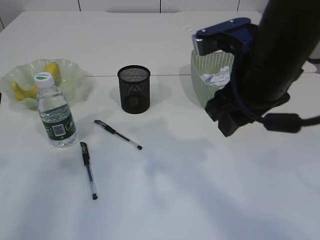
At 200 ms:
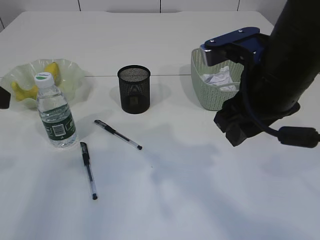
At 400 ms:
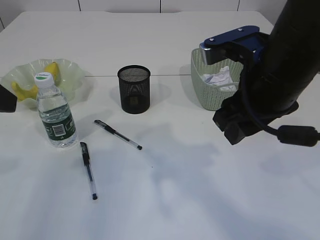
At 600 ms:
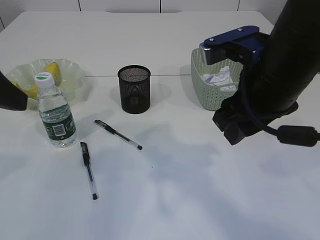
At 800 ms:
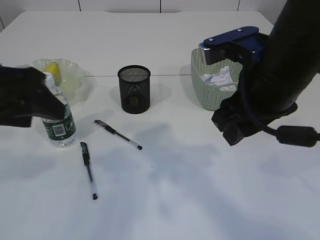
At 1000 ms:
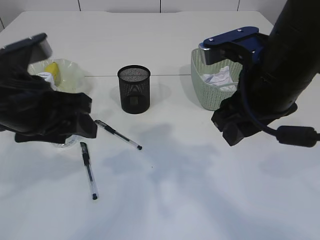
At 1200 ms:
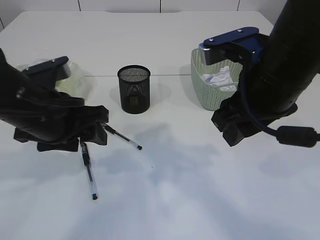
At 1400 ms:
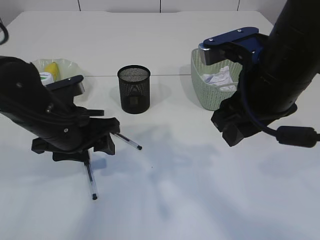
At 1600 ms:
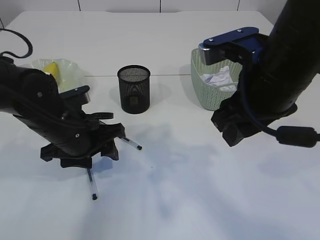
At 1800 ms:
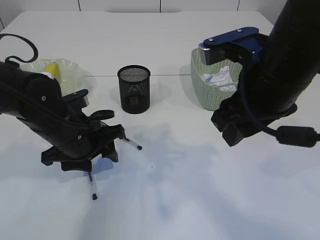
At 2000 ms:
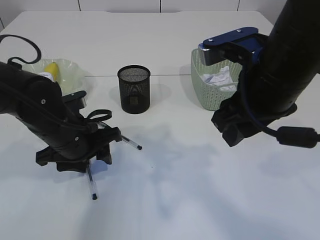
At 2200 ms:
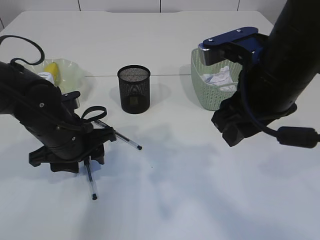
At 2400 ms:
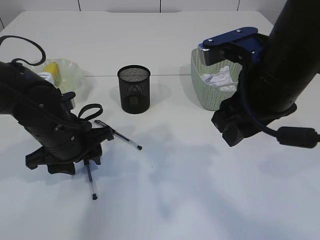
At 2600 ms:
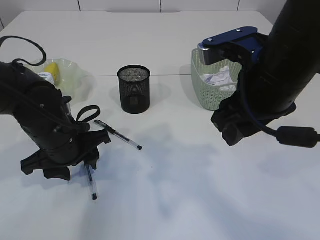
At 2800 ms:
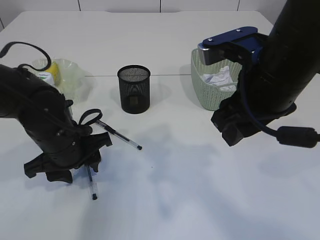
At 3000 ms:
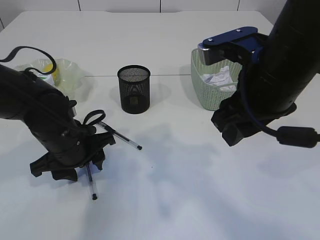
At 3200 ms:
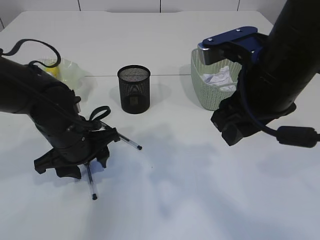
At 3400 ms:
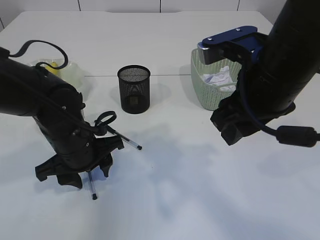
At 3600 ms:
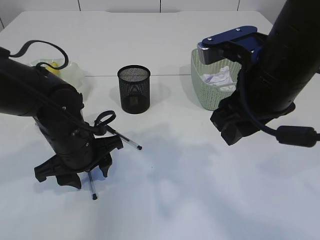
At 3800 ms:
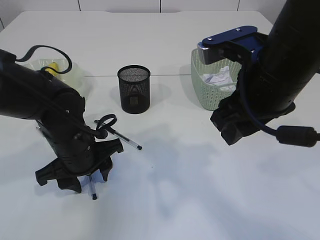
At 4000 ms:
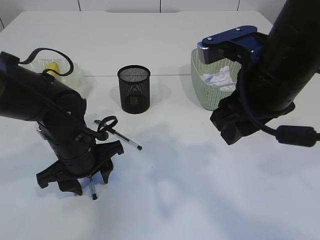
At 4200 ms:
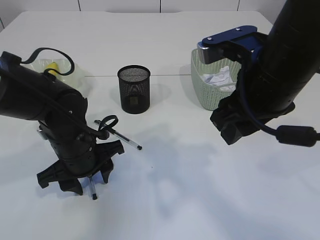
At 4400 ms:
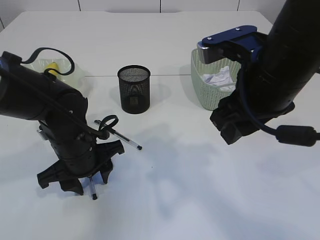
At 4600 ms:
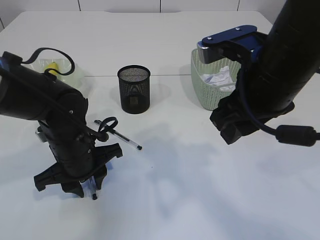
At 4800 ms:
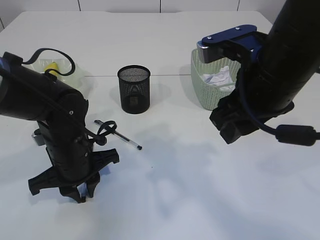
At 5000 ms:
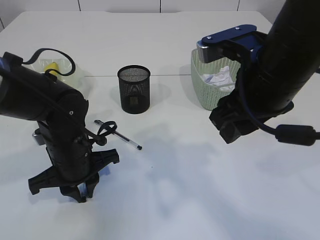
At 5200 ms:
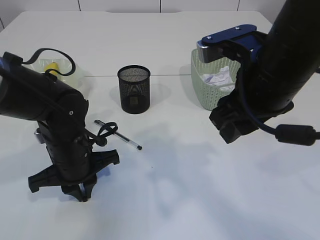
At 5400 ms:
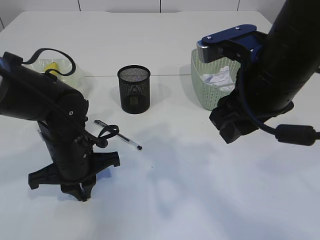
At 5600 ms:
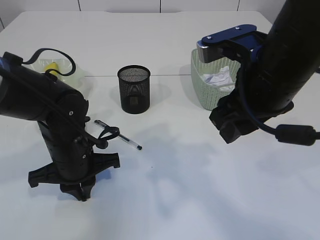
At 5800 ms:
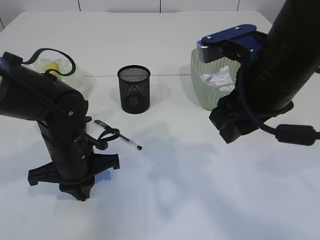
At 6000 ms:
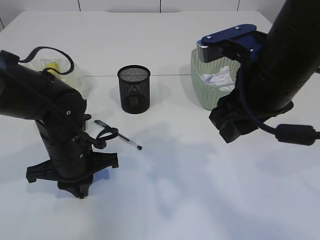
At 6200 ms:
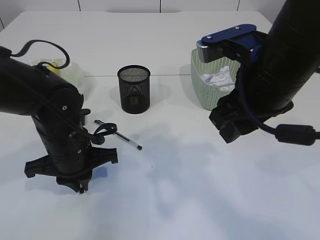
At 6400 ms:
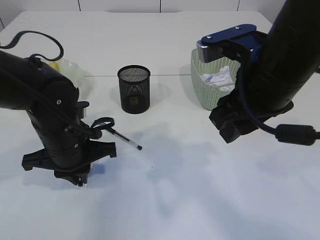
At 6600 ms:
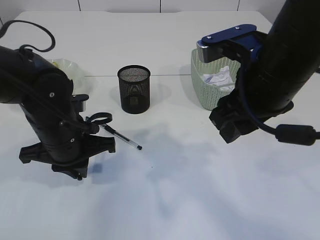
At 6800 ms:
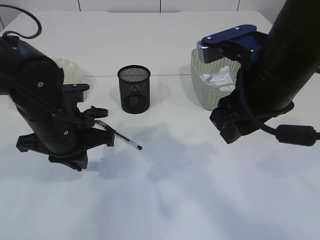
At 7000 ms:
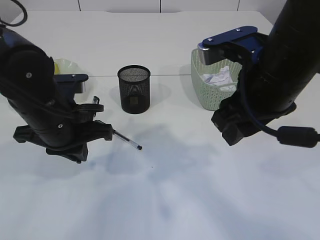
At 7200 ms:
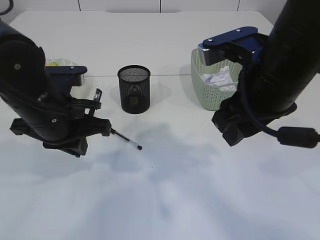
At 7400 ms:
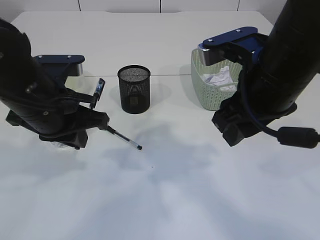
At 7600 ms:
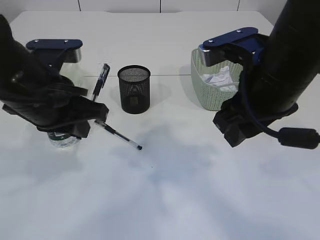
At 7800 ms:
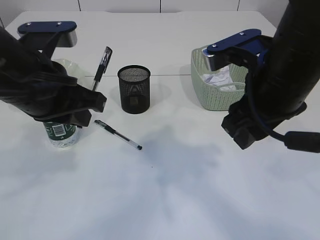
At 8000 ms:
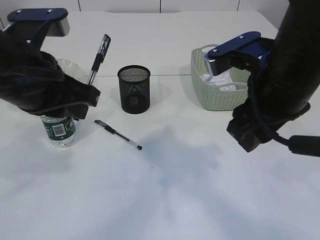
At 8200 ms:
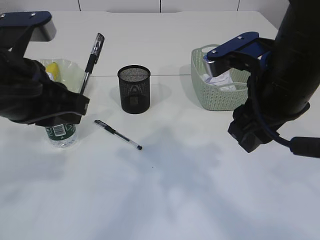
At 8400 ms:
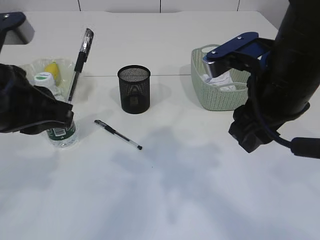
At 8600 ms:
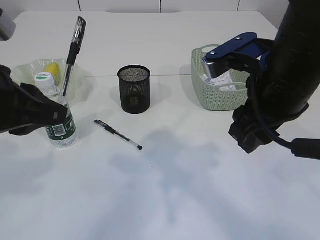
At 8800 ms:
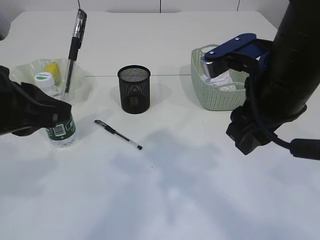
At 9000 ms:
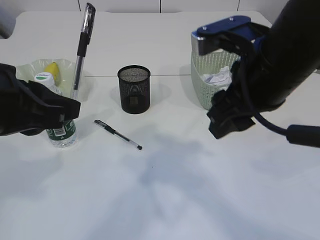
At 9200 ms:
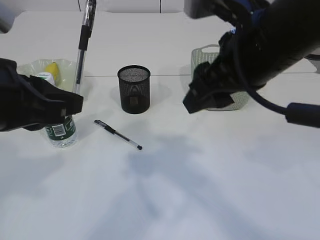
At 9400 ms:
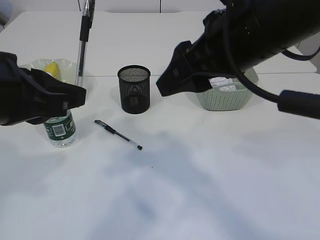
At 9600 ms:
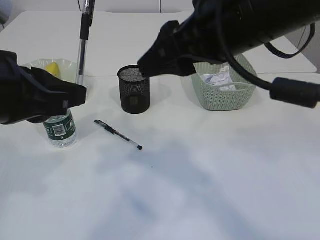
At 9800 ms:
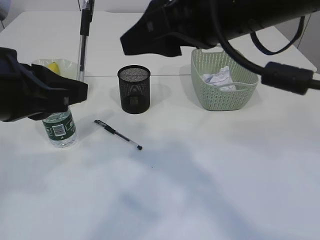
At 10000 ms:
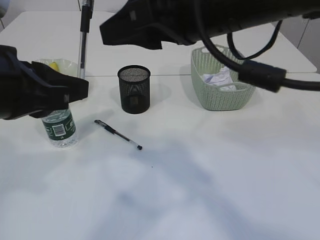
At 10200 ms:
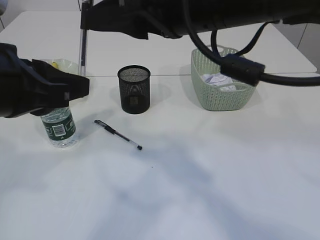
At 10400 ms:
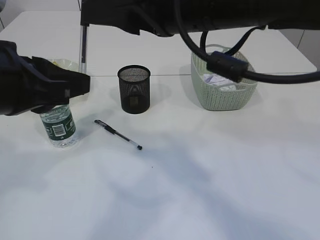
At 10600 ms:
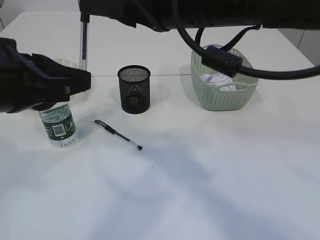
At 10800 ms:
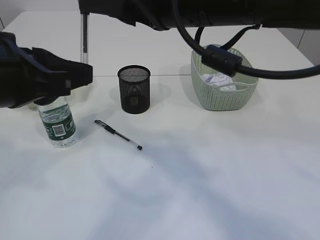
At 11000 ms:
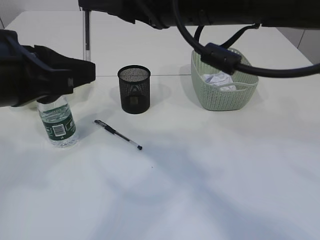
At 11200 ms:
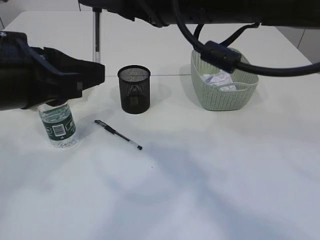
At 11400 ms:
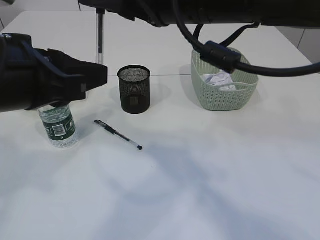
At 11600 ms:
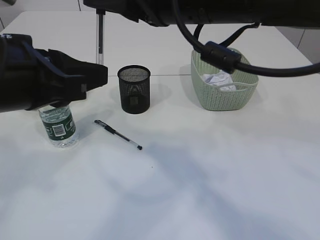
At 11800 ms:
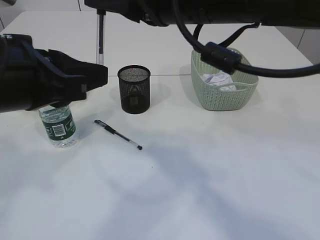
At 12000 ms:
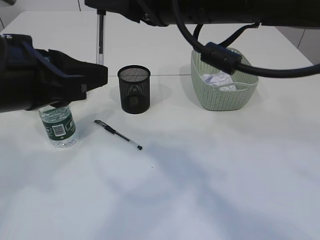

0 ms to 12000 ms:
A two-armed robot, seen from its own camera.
Step, 0 ms to 7000 ms: Pick up the pen with left arm.
0 ms to 1600 ms: The left gripper travels downward, to the right and forward by roughly 25 cm.
1600 ms to 3000 ms: There are only small adjustments of the grippers.
3000 ms to 4400 ms: The grippers move only a little.
4400 ms to 6000 ms: The left gripper closes.
6000 ms to 7600 ms: The left gripper heads upward, covering roughly 15 cm.
7600 ms to 9000 ms: The left gripper shifts approximately 10 cm backward.
9000 ms to 10400 ms: The right gripper is displaced to the left and upward by some 10 cm.
10400 ms to 12000 ms: The right gripper closes.

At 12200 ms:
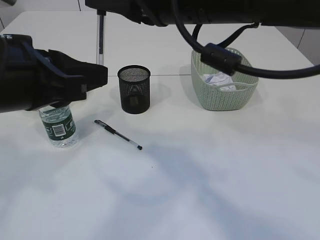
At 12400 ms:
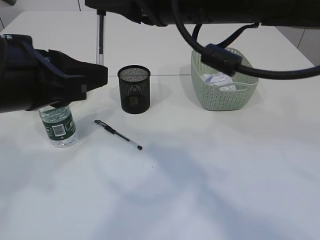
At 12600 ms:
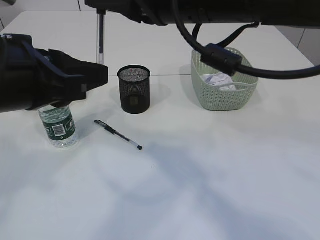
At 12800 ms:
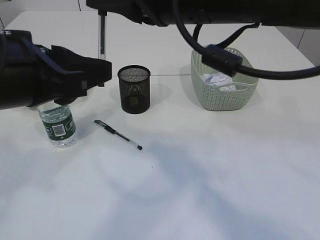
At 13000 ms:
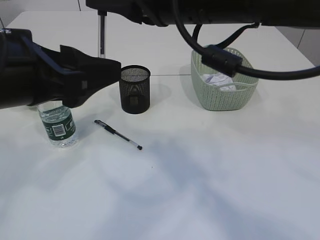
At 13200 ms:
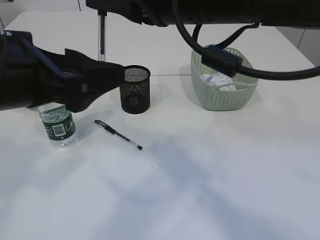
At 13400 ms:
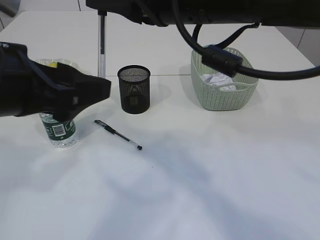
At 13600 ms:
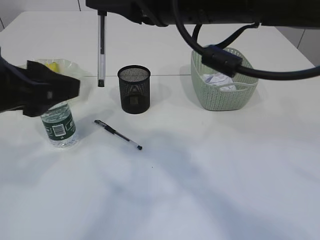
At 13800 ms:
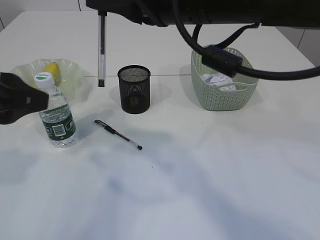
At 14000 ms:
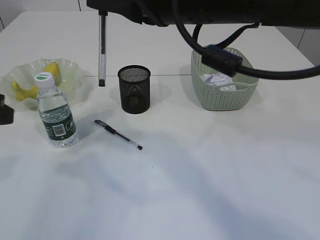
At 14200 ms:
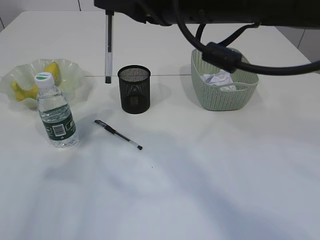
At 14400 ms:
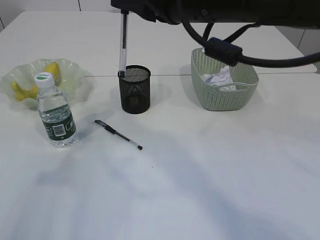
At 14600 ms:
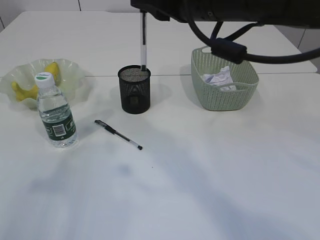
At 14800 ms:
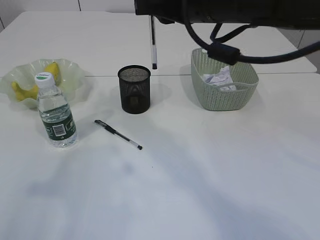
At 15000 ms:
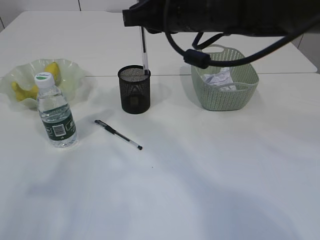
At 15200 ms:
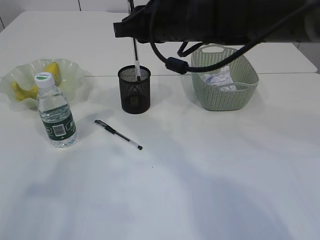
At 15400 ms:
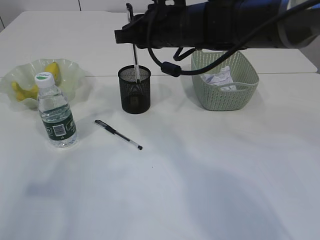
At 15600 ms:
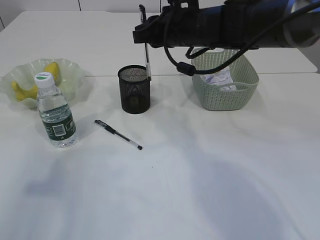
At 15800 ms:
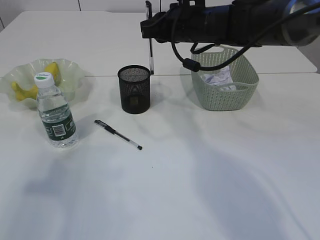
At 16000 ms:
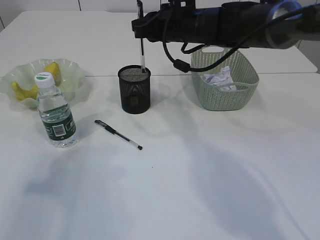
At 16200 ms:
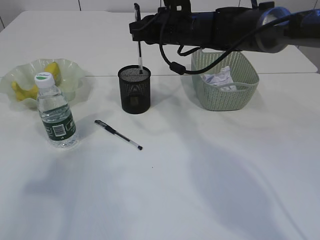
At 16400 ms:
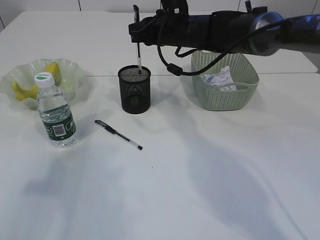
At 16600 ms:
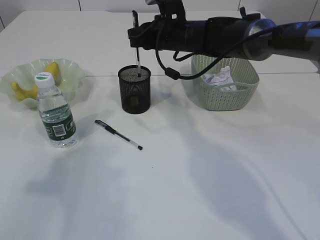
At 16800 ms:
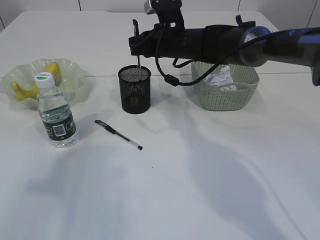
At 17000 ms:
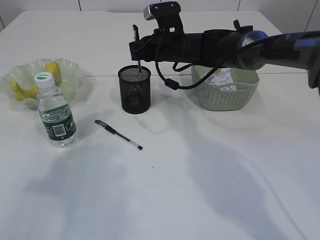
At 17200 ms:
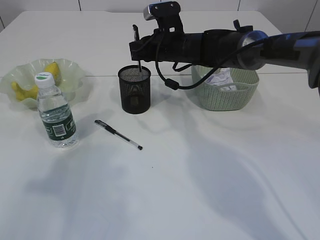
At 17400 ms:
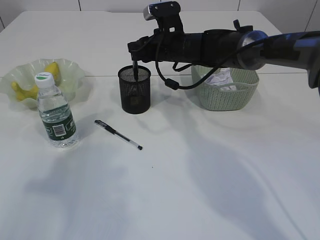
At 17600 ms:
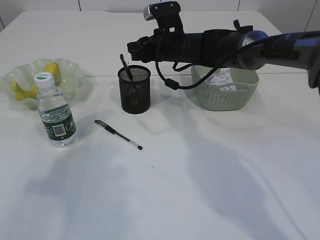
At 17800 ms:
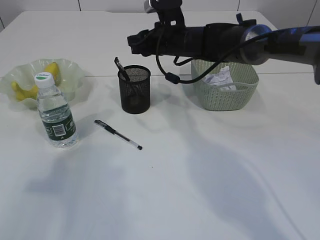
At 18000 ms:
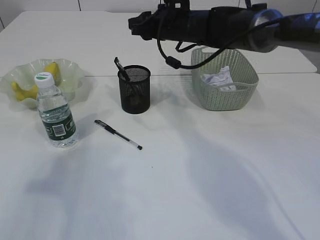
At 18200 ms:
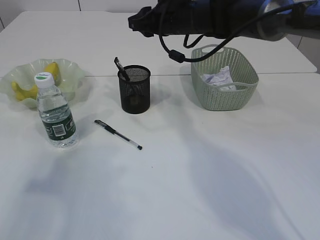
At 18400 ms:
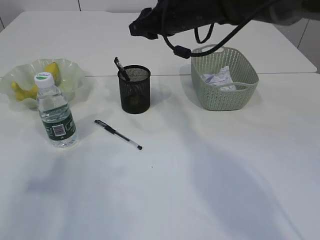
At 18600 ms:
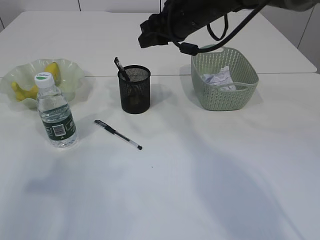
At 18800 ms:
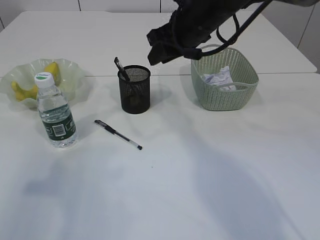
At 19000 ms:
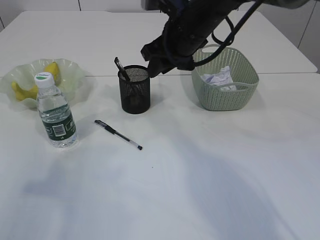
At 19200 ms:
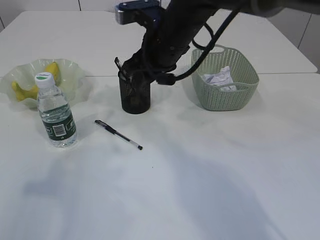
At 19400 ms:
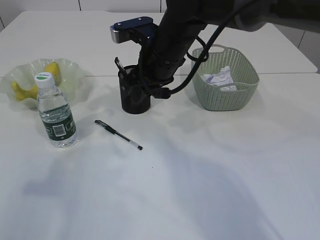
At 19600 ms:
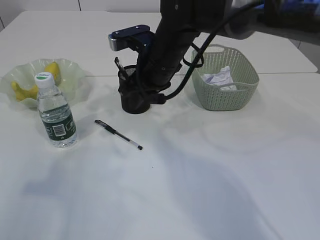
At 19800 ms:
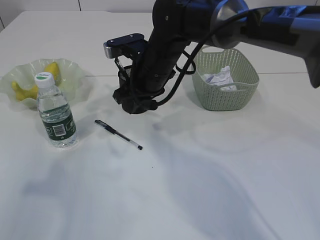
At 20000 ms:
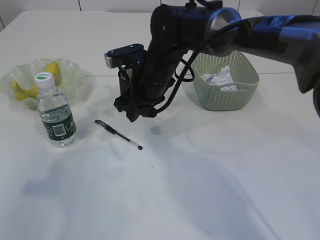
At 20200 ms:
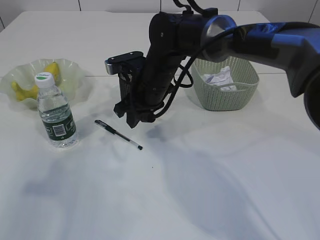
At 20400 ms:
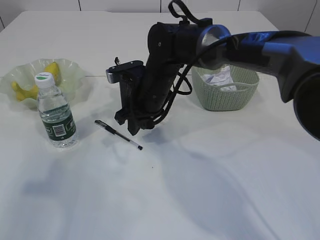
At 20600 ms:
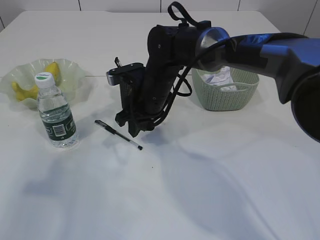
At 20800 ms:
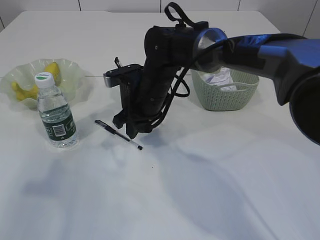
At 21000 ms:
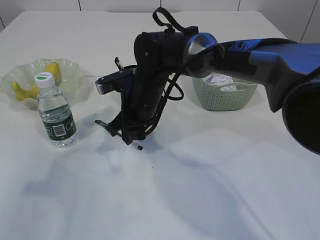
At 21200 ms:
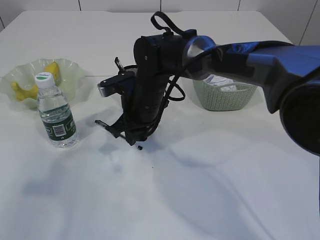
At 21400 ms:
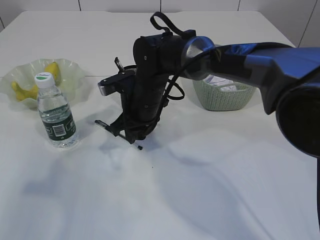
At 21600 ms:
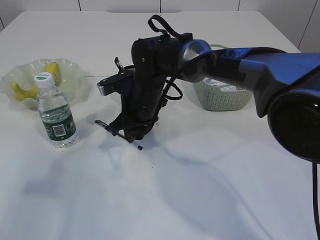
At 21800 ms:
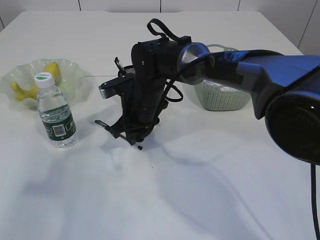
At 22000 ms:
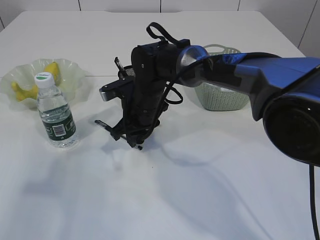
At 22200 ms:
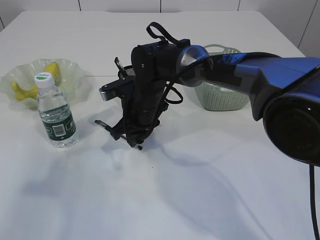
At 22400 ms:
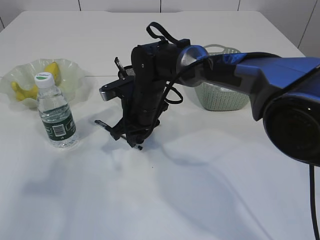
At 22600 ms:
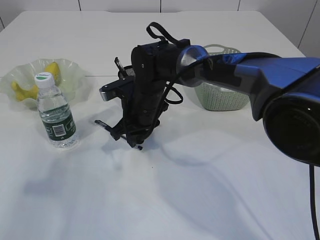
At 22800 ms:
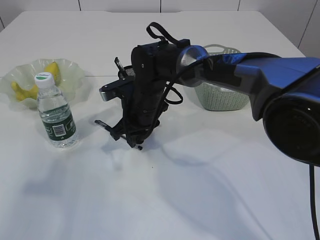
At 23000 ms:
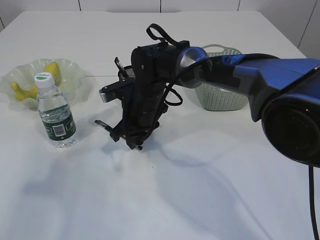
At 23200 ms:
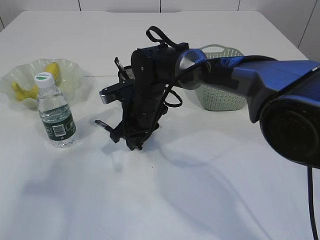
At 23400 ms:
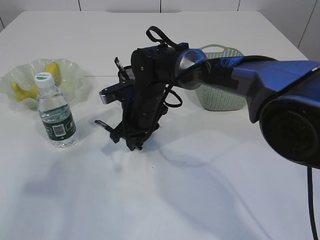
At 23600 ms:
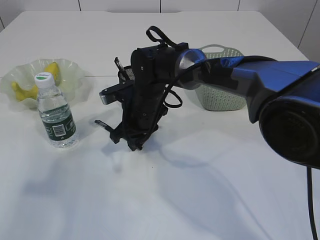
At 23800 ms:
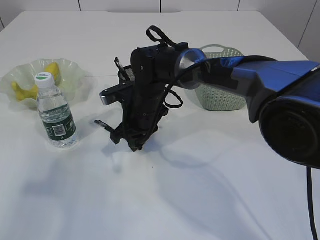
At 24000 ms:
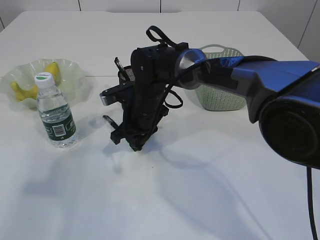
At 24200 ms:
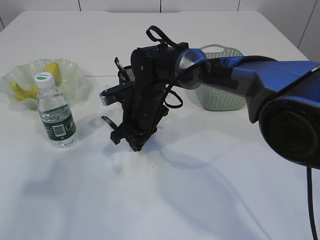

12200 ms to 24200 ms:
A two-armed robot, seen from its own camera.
Step, 14000 ms to 18400 ms: Place the pen into the pen holder.
12200 ms to 13800 ms: The left gripper is displaced to the left by some 5 cm, and opens its fingers.
13800 ms to 15200 ms: The left gripper travels to the left and backward by some 10 cm. Meanwhile the right gripper travels forward and downward by about 10 cm.
15200 ms to 16600 ms: The right gripper is displaced forward and downward by approximately 15 cm.
16600 ms to 18200 ms: The right gripper opens.
18200 ms to 19800 ms: The right gripper shifts about 10 cm backward and to the left.
19800 ms to 21200 ms: The right gripper moves downward, about 5 cm.
21200 ms to 22600 ms: There are only small adjustments of the grippers.
22600 ms to 24200 ms: The right gripper closes up.
